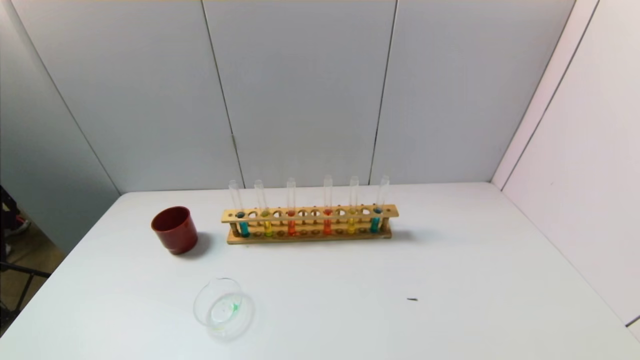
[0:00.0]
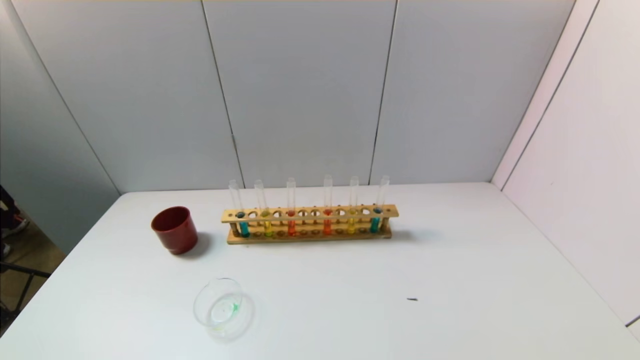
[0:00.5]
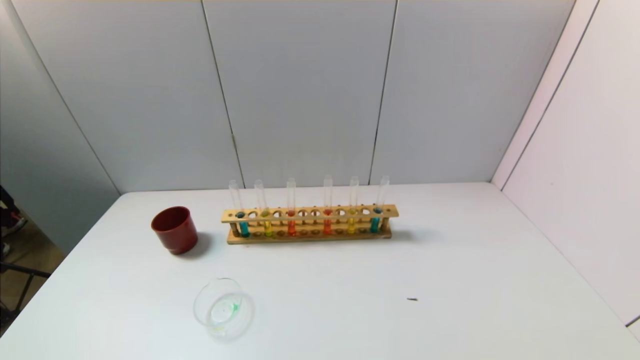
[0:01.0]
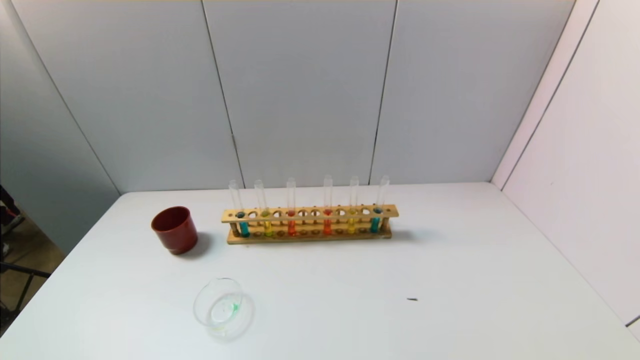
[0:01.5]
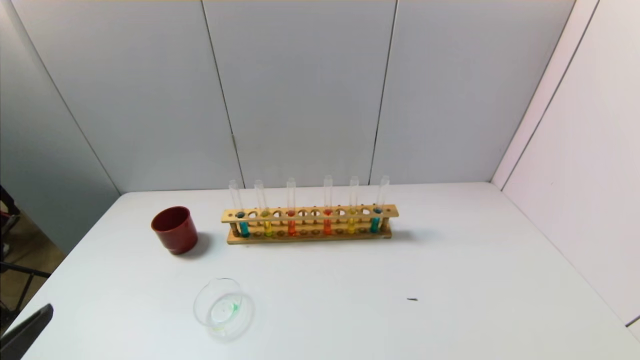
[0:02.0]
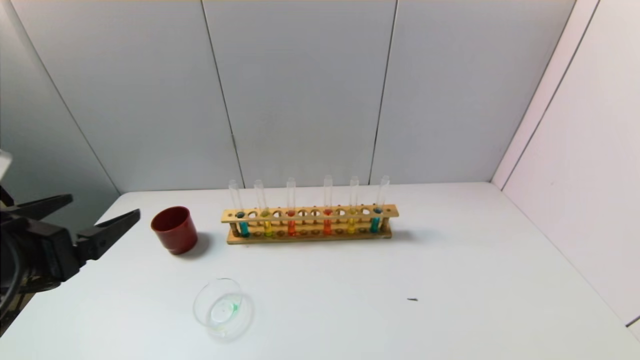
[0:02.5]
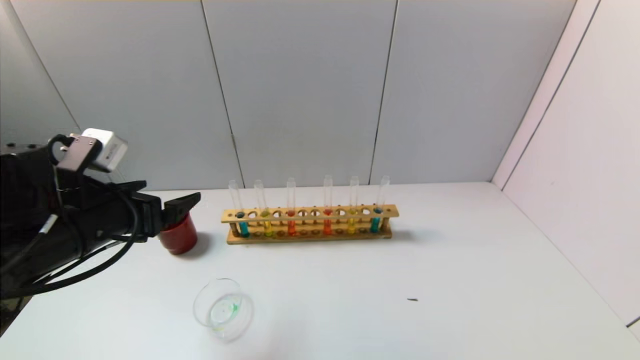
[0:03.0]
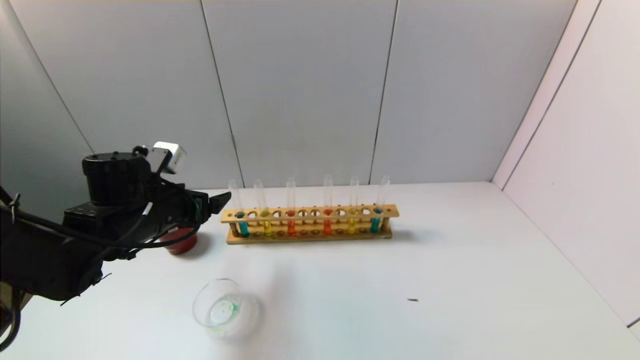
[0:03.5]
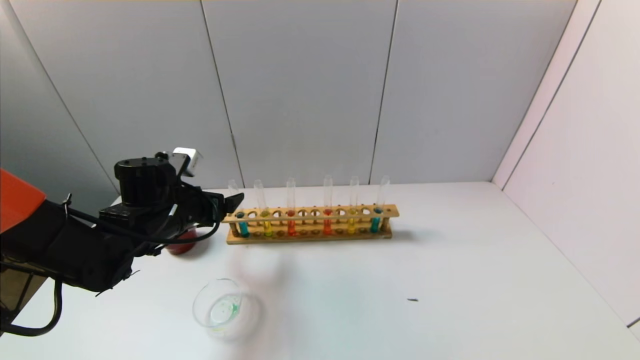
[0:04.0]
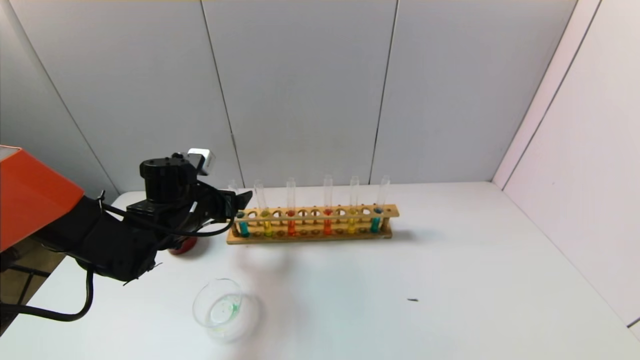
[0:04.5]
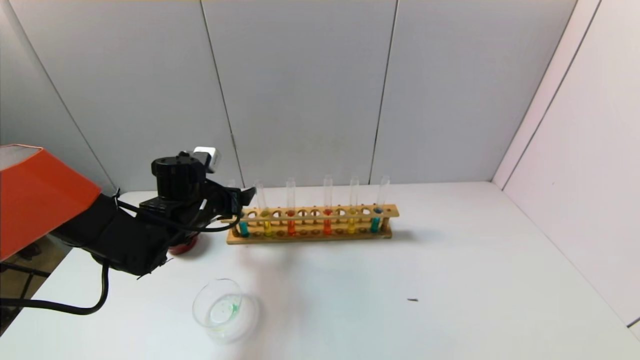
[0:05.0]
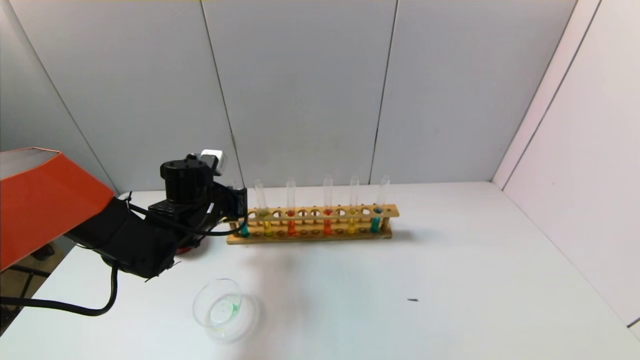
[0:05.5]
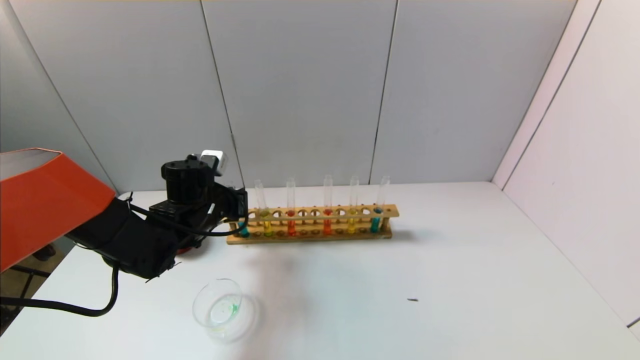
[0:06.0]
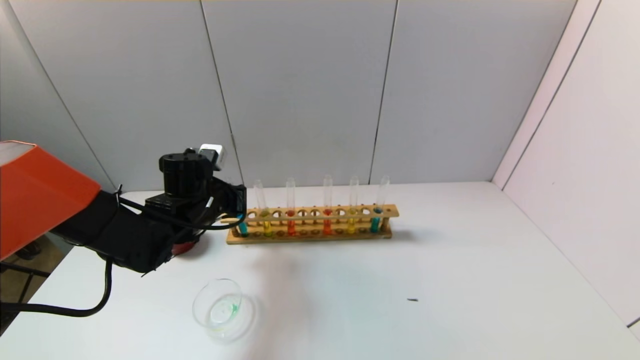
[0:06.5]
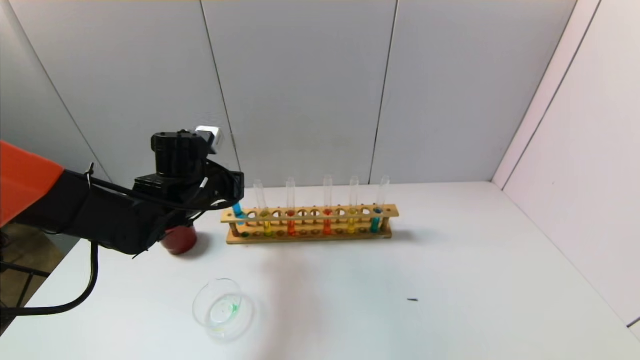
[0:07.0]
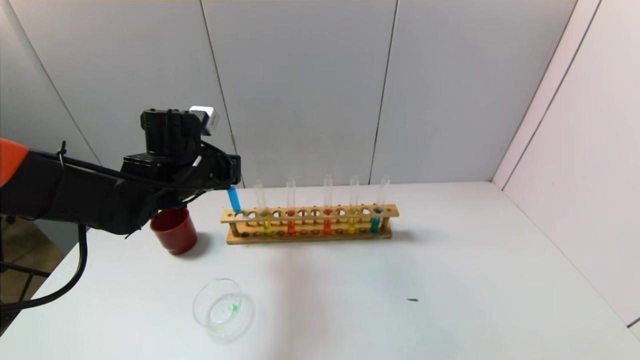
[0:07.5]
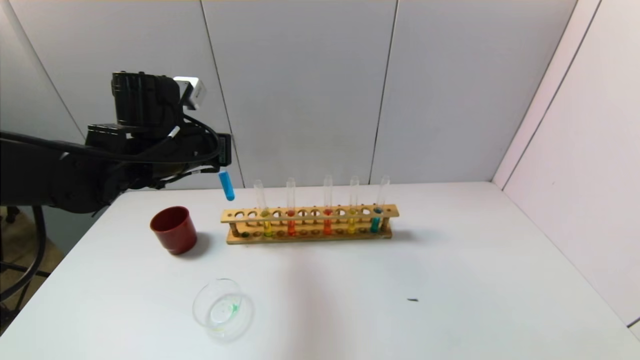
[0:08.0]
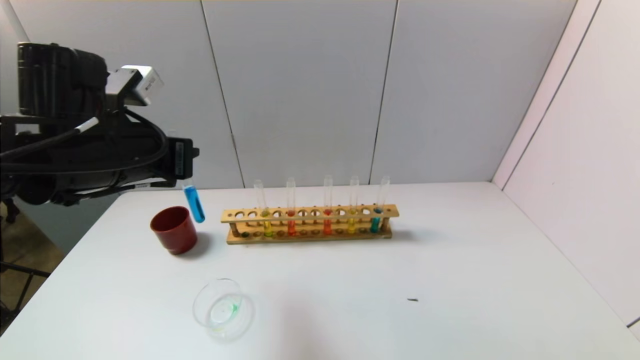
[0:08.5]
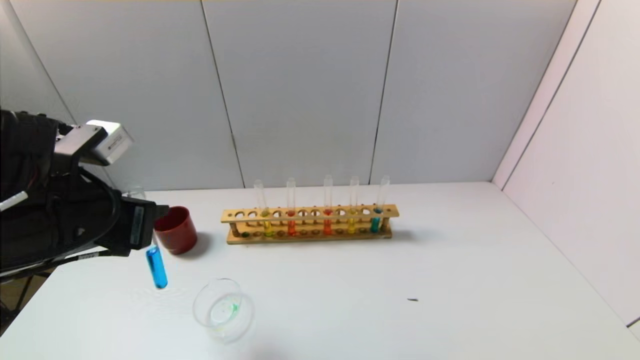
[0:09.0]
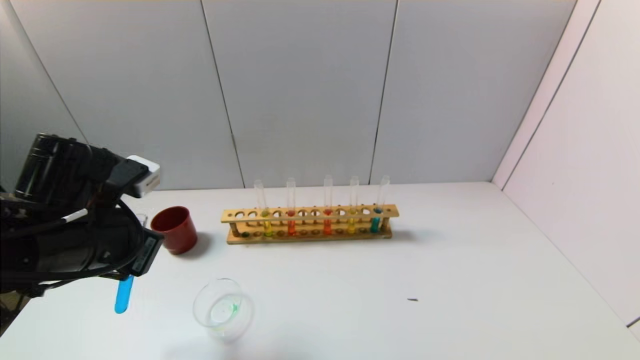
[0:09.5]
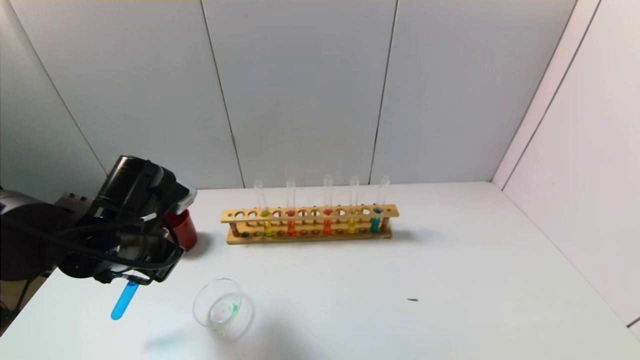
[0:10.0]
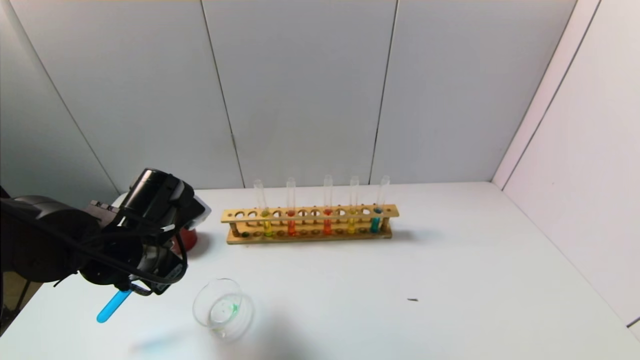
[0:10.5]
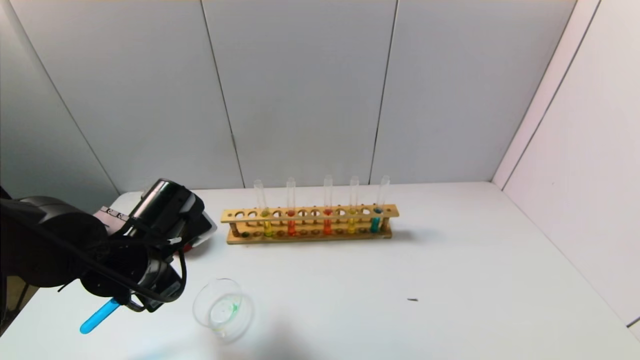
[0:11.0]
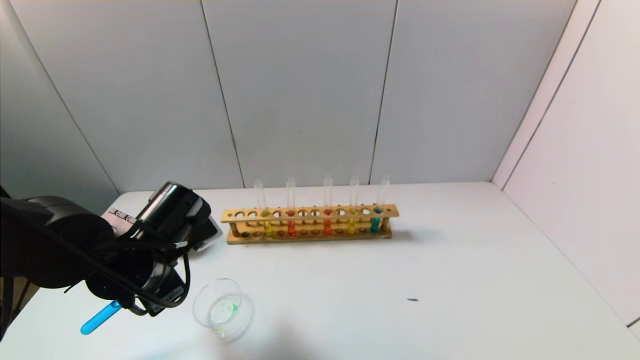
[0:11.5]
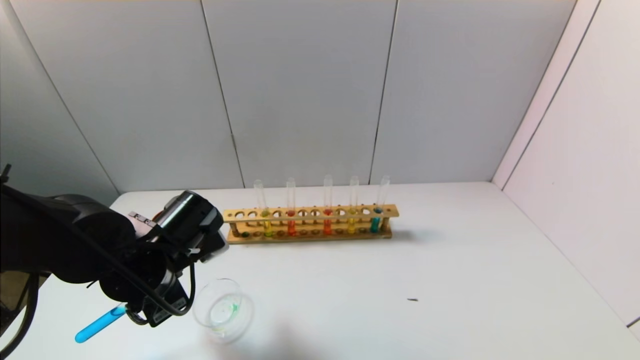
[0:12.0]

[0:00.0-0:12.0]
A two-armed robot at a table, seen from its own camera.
Task of the whole recording: pick up the test tube with yellow pigment and the test tube with blue pigment by grippers and pour them into the beaker.
Step, 0:00.0 to 0:05.5: Grasp the blue reagent with the left gripper.
0:00.0 to 0:02.0: The left gripper goes approximately 10 cm upward.
0:02.0 to 0:04.0: The left gripper heads forward, covering some 30 cm.
0:04.0 to 0:06.0: The left gripper moves some 5 cm, and closes its fingers.
0:06.0 to 0:08.0: The left gripper moves upward, roughly 15 cm.
0:08.0 to 0:10.0: The left gripper moves backward and downward, approximately 10 cm.
0:10.0 to 0:12.0: The left gripper ends up about 5 cm from where it was.

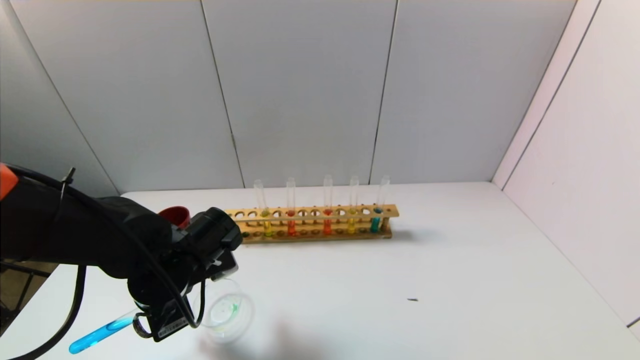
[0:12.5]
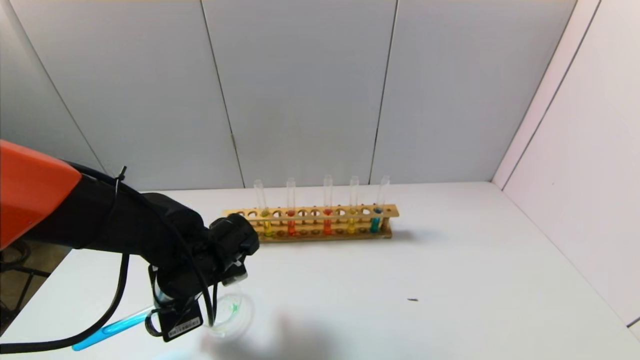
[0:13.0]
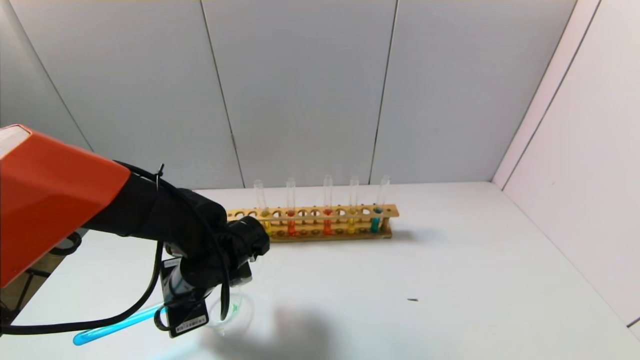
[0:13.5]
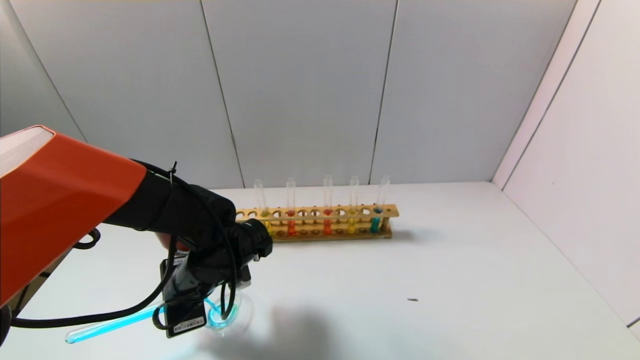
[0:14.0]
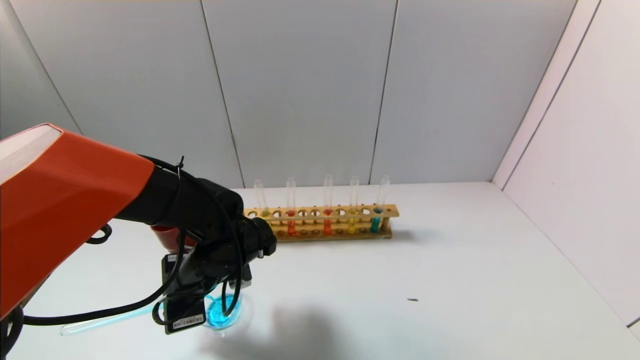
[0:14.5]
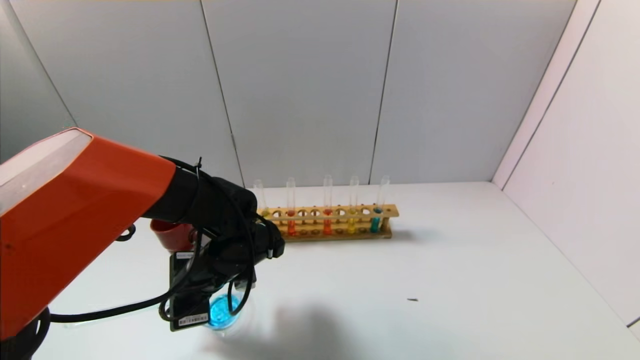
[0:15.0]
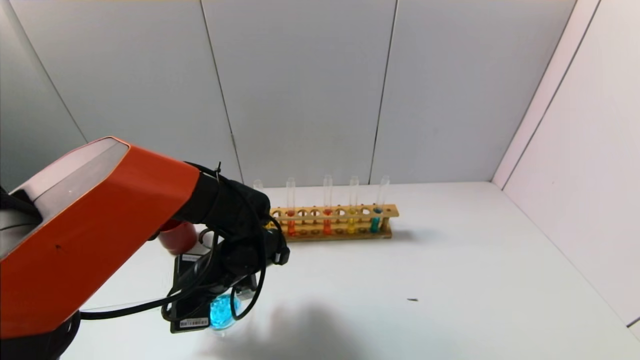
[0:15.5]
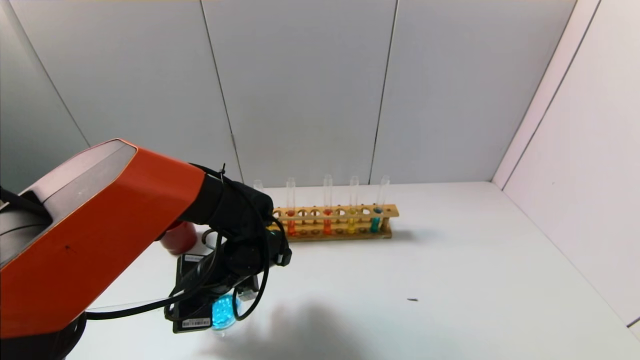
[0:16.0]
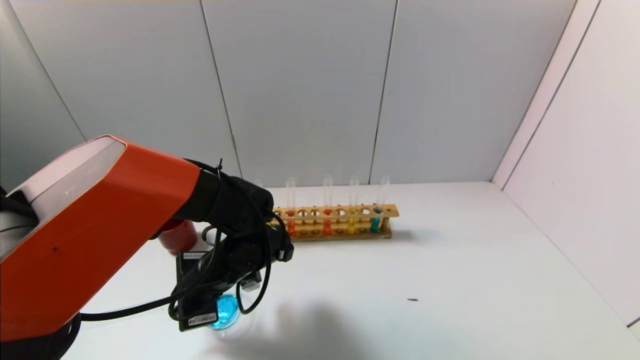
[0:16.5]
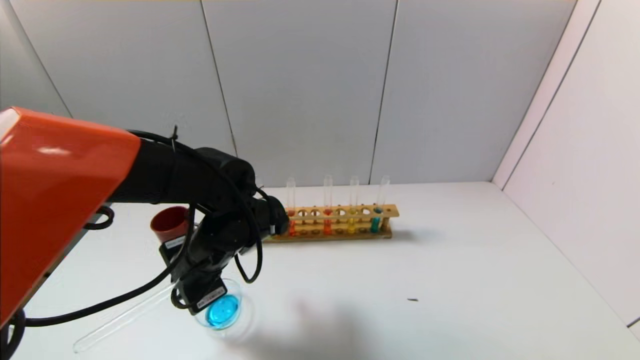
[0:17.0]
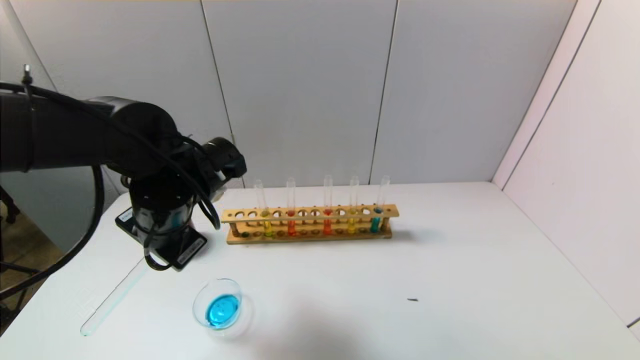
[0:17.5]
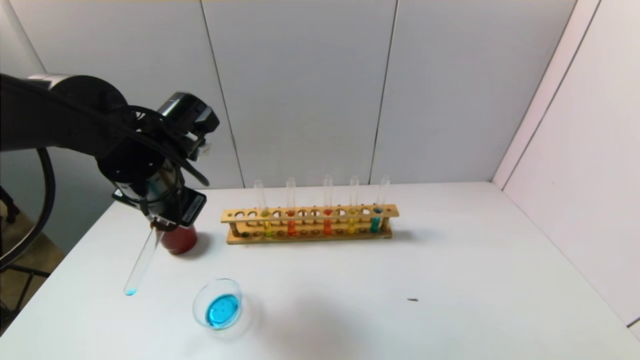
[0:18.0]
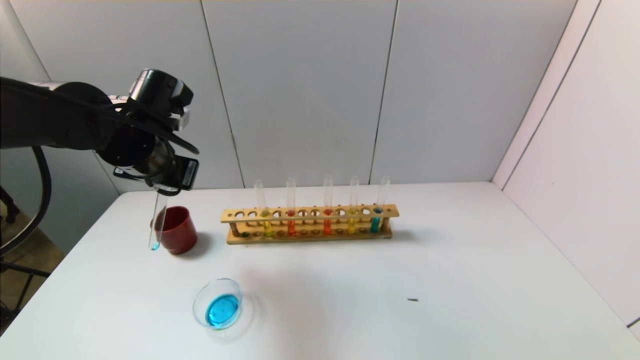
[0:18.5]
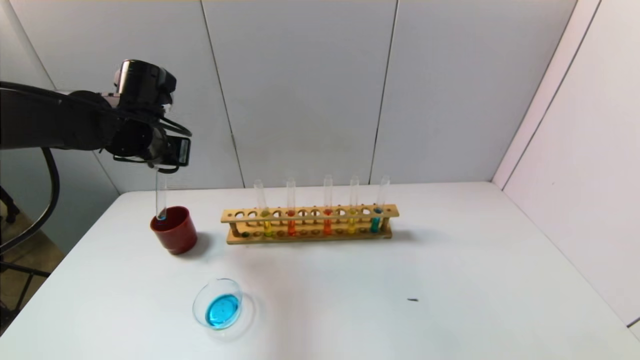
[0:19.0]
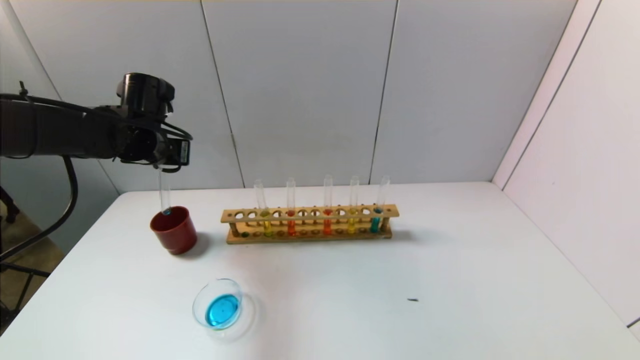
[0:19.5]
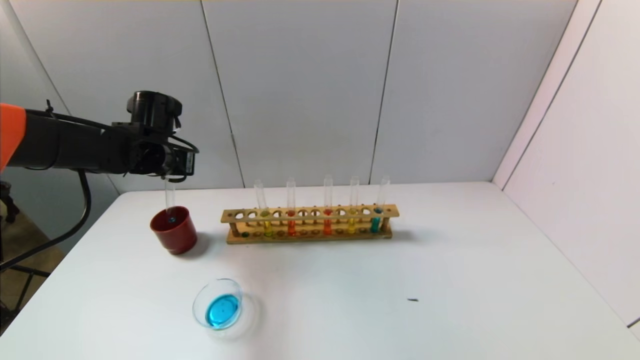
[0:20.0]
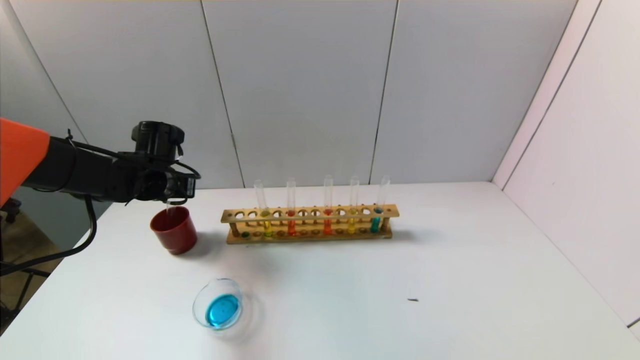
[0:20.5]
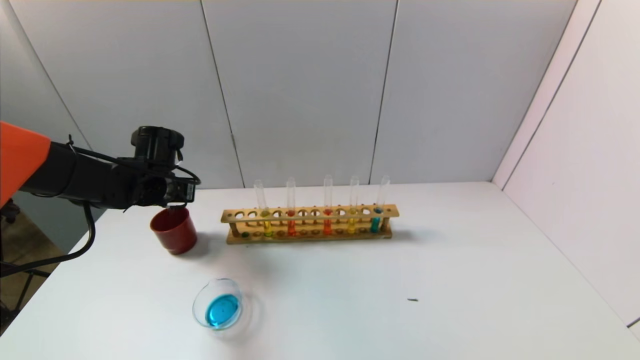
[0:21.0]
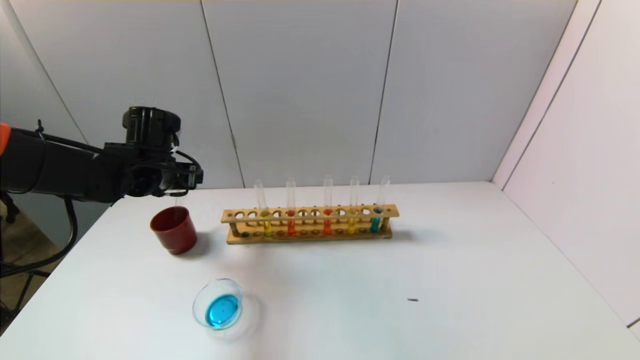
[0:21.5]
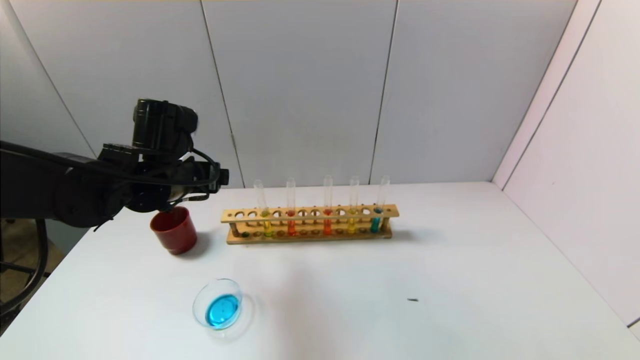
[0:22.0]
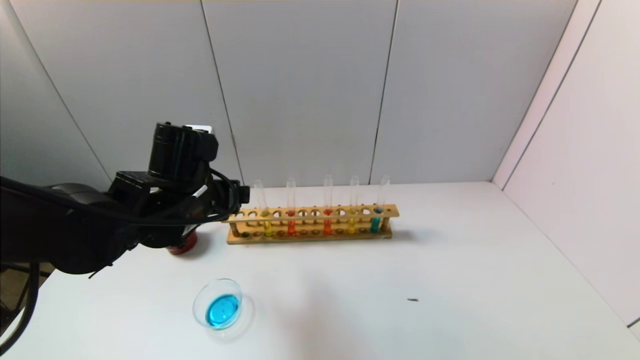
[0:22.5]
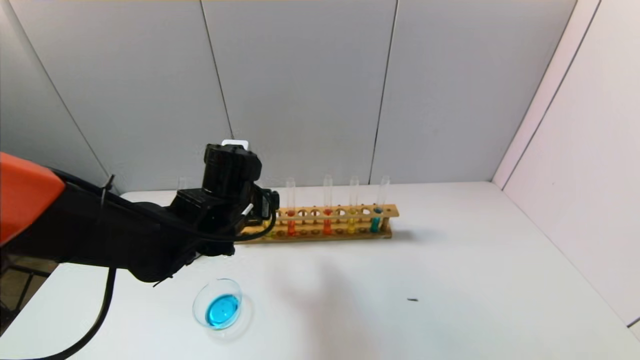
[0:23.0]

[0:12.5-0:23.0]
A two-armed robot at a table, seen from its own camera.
Task of the whole recording: pick up the test tube with yellow pigment and the test tube with blue pigment by grippers and pour them into the beaker.
Step, 0:12.5 to 0:17.0: Pour the blue reagent into the graduated cylinder with the left gripper.
Step, 0:17.5 to 0:21.0: Place the test tube into the brown cup with the left gripper.
0:14.5 to 0:16.5: The grippers make only small movements.
0:16.5 to 0:19.0: The left gripper moves upward, to the left and forward, some 20 cm.
0:19.0 to 0:21.0: The left gripper goes some 10 cm downward.
0:21.0 to 0:23.0: The left gripper goes some 20 cm to the right and backward, and opens up.
